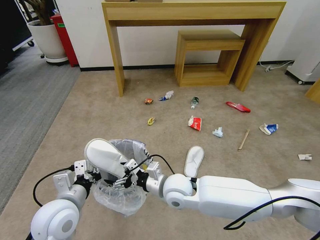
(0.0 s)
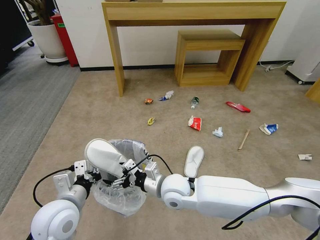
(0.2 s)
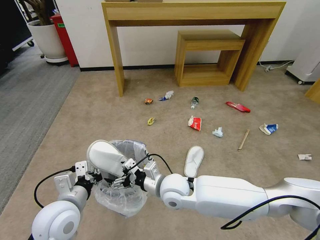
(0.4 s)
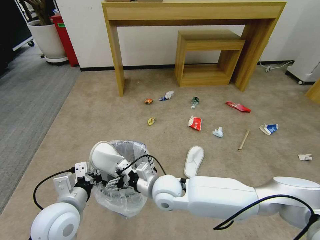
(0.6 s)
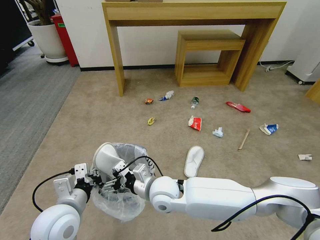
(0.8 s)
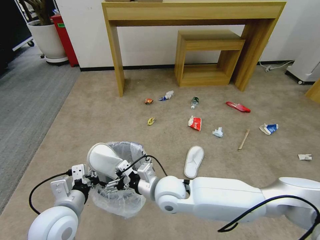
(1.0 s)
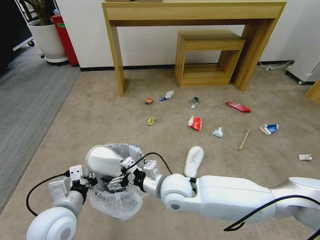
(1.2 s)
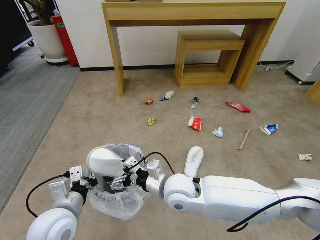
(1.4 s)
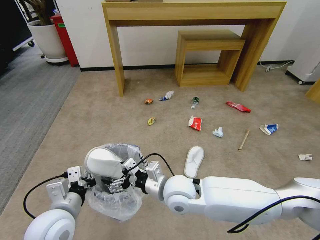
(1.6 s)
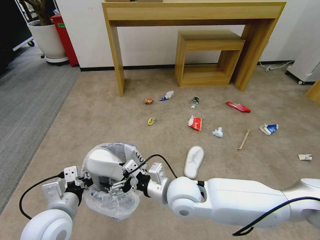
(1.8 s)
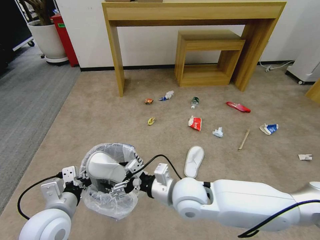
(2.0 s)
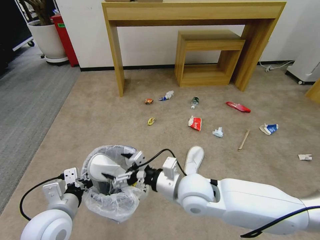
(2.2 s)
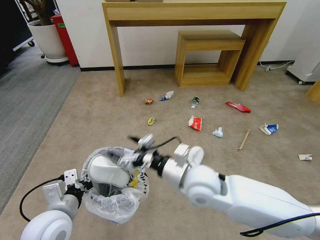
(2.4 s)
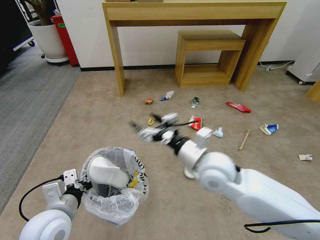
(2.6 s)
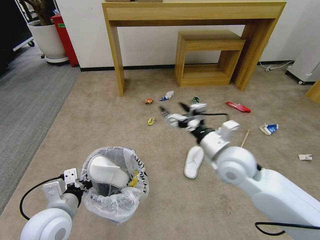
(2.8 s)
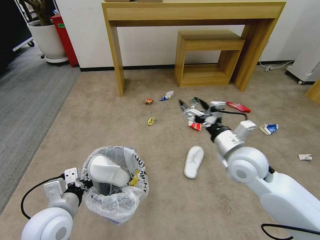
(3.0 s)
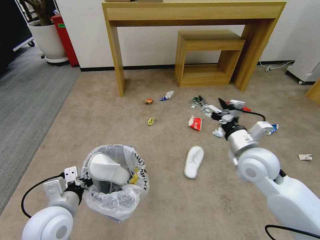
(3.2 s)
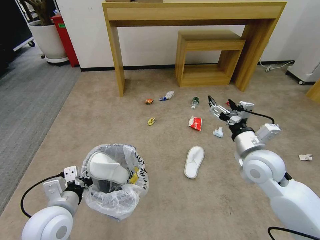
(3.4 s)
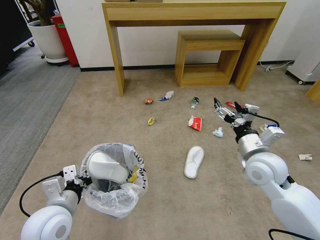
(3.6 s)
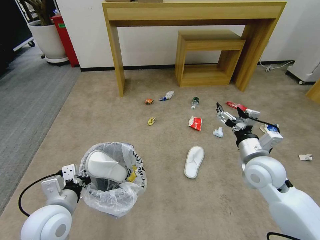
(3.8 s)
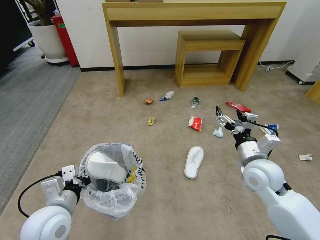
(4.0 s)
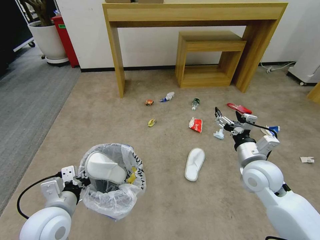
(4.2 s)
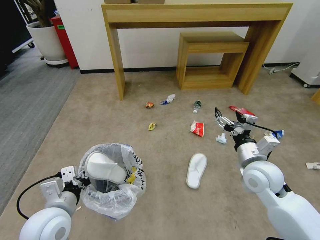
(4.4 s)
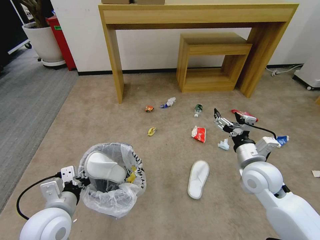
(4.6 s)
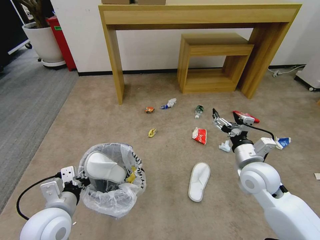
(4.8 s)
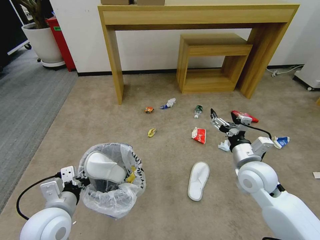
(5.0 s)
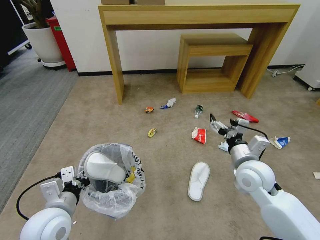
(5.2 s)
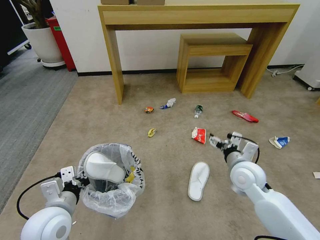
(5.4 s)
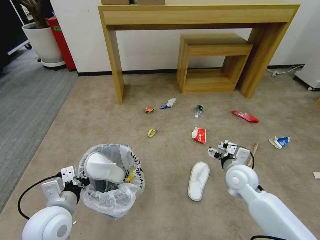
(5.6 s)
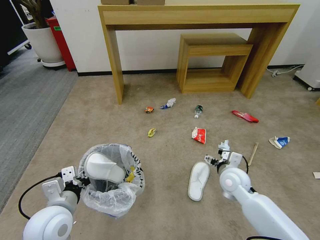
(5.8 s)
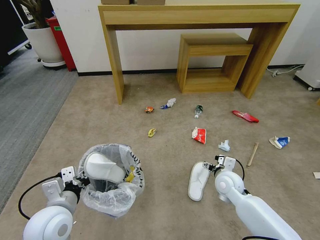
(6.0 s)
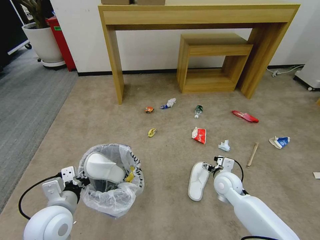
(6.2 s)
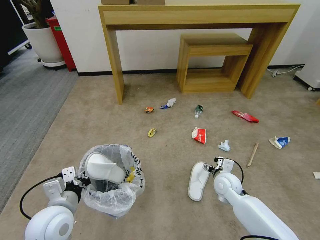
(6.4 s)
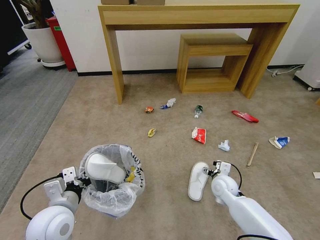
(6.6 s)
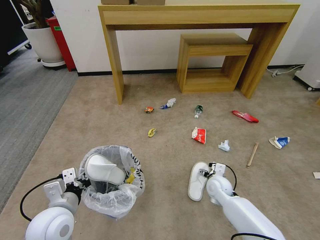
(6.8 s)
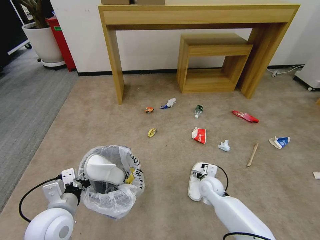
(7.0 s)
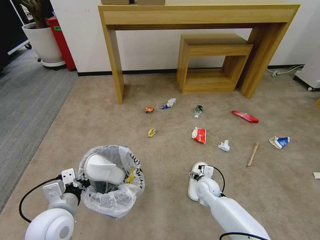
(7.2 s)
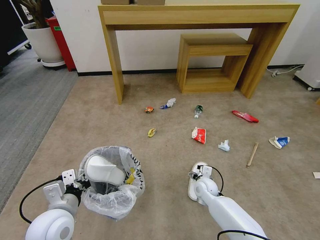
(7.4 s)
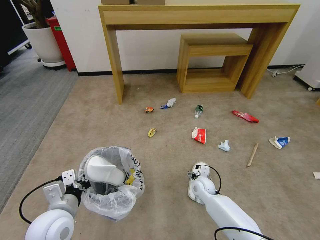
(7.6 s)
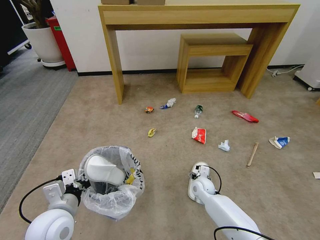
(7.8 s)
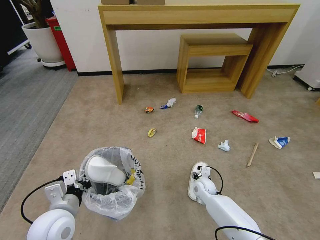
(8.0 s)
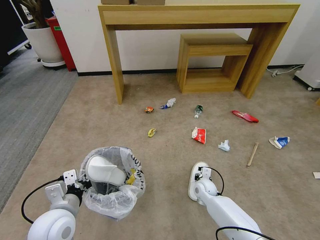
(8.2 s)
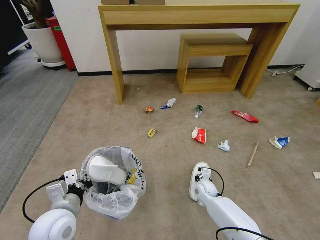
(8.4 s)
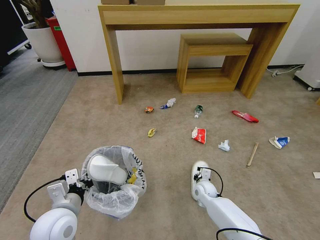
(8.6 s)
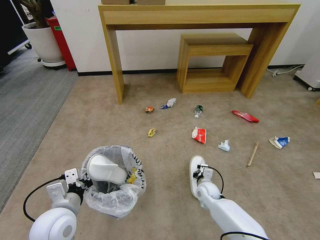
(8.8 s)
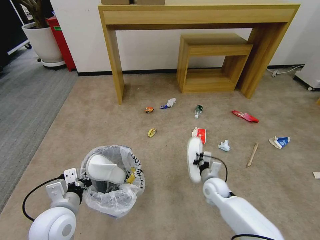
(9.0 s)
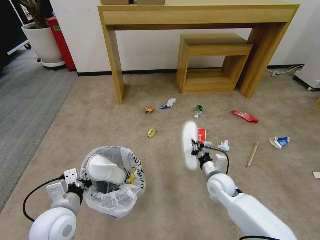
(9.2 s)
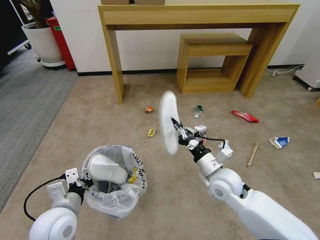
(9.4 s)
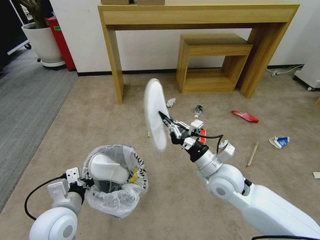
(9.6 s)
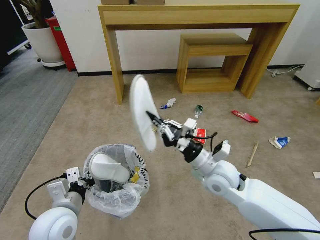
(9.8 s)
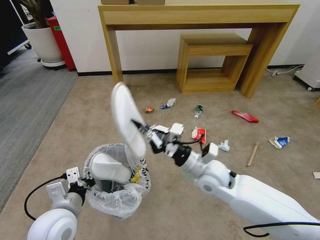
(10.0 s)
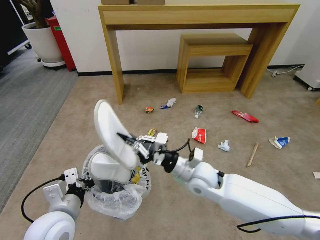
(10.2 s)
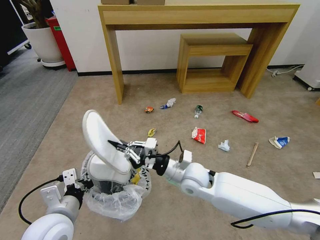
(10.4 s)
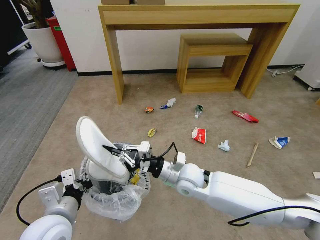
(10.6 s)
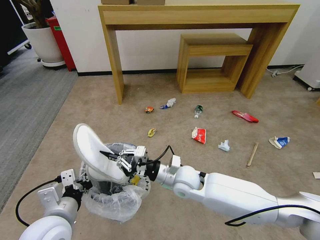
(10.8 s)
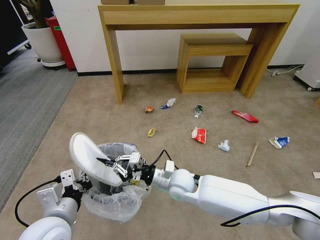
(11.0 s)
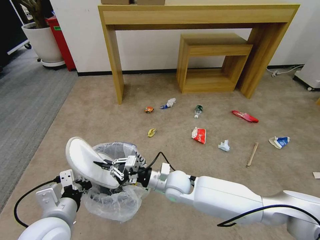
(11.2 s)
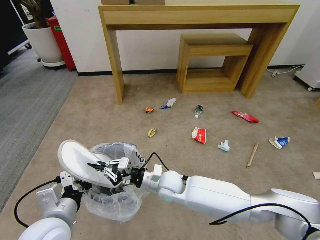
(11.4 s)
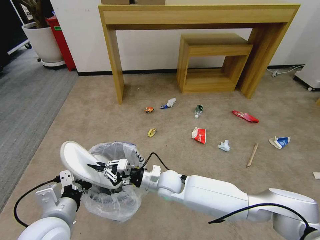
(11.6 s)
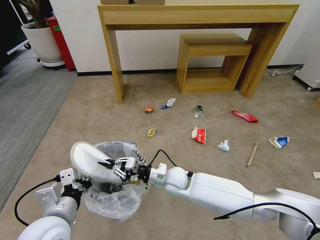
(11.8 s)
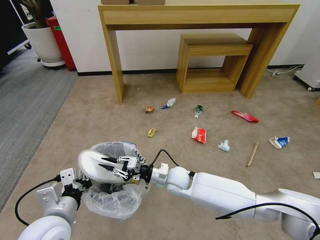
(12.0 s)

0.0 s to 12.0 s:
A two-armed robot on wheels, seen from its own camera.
Task of the whole recording: Pick up the trash bin and place the garbage on the floor into it.
0.0 to 1.6 s: The grippers move only a little.
1.6 to 3.0 s: The right gripper heads to the right and upward, covering about 20 cm.
3.0 to 4.4 s: The right gripper changes place by approximately 5 cm.
4.4 to 6.0 s: The right gripper is displaced downward by some 15 cm.
6.0 to 7.6 s: The right gripper goes about 15 cm downward and to the left.
7.6 to 9.0 s: The right gripper ends up roughly 5 cm from where it was, and closes its fingers.
9.0 to 10.4 s: The right gripper is displaced upward and to the left by about 20 cm.
10.4 to 12.0 s: The right gripper goes approximately 10 cm downward.

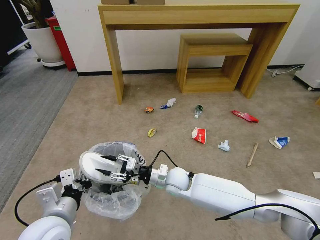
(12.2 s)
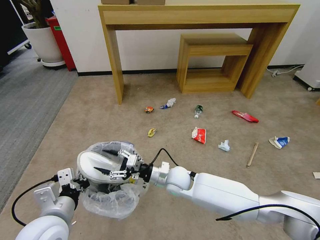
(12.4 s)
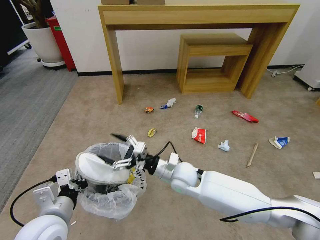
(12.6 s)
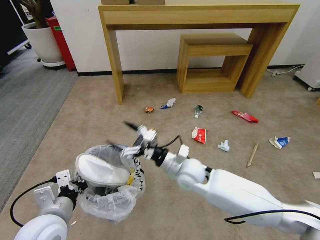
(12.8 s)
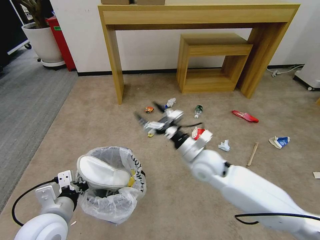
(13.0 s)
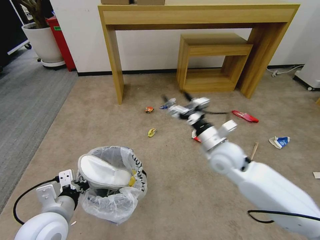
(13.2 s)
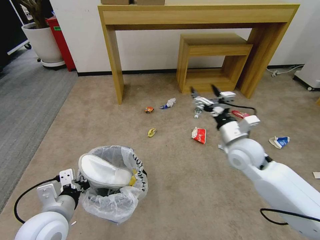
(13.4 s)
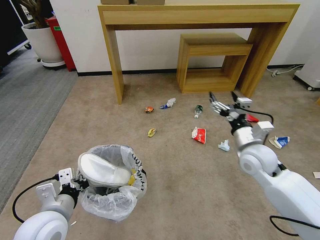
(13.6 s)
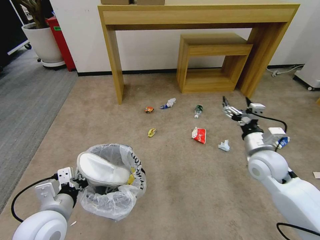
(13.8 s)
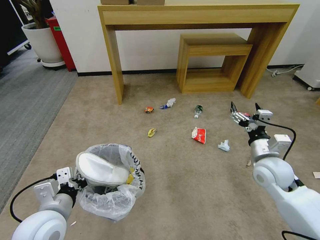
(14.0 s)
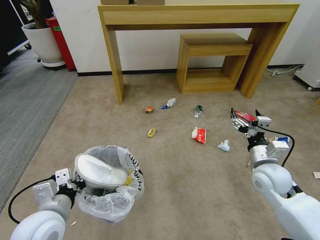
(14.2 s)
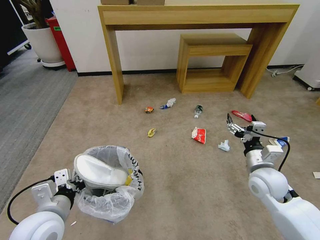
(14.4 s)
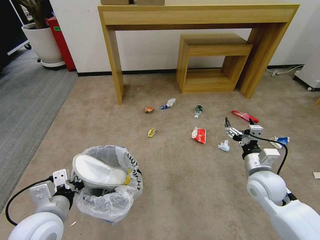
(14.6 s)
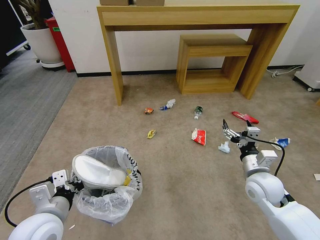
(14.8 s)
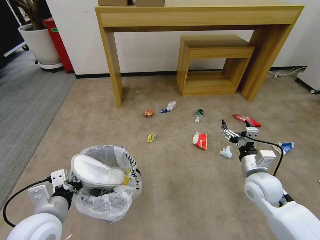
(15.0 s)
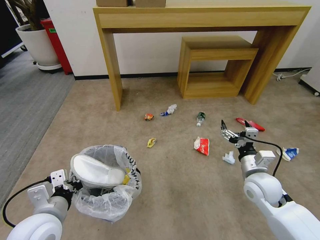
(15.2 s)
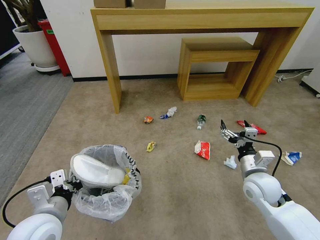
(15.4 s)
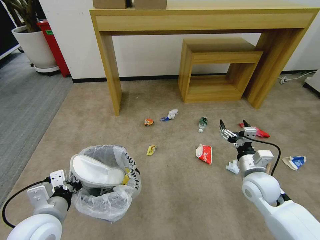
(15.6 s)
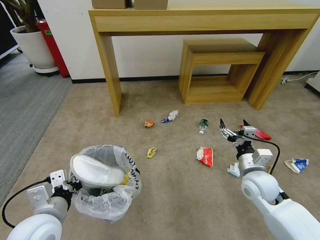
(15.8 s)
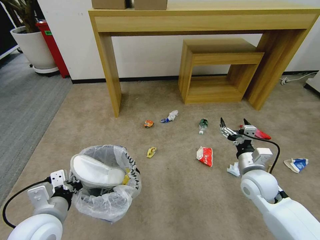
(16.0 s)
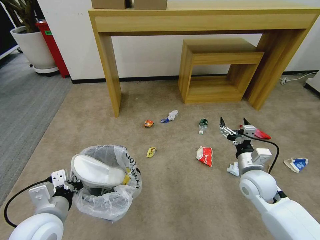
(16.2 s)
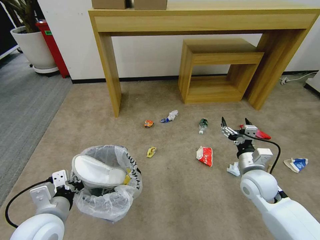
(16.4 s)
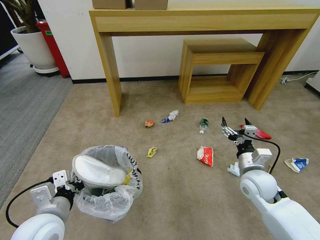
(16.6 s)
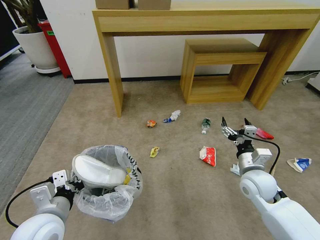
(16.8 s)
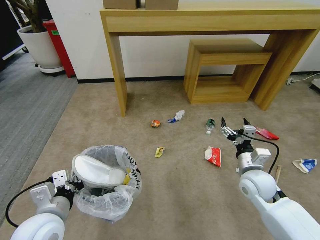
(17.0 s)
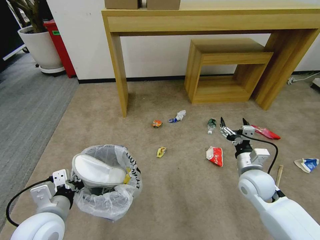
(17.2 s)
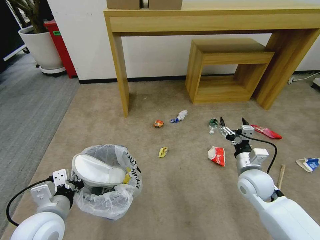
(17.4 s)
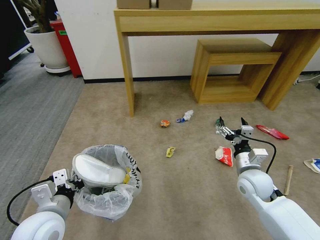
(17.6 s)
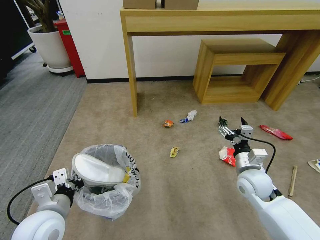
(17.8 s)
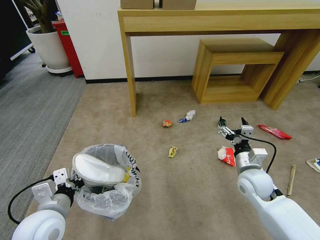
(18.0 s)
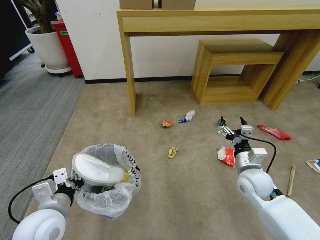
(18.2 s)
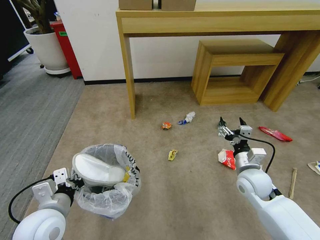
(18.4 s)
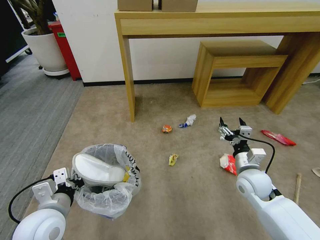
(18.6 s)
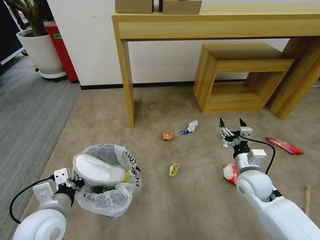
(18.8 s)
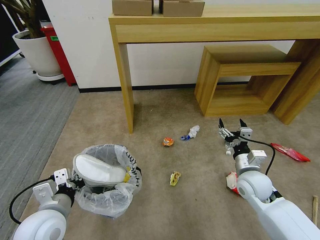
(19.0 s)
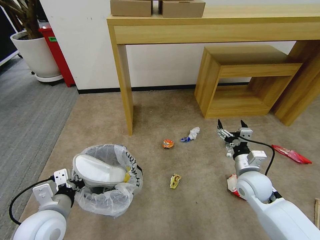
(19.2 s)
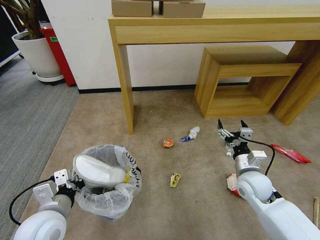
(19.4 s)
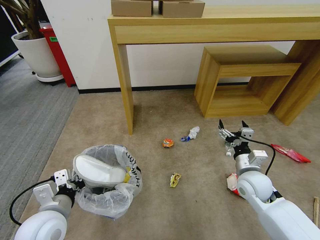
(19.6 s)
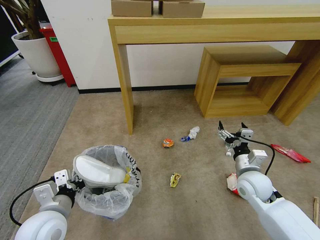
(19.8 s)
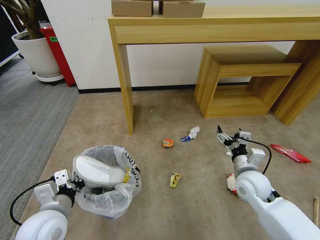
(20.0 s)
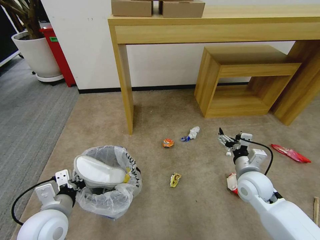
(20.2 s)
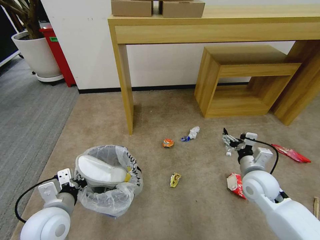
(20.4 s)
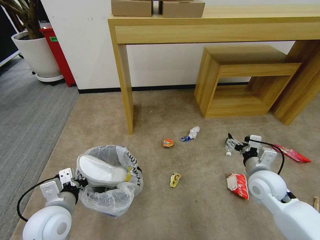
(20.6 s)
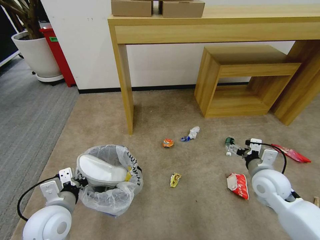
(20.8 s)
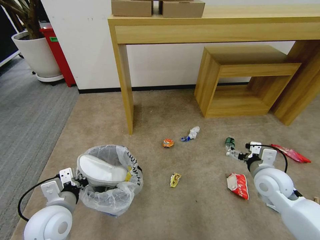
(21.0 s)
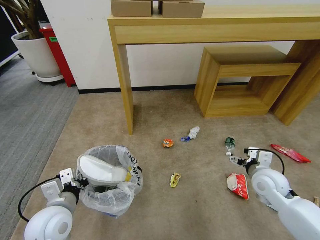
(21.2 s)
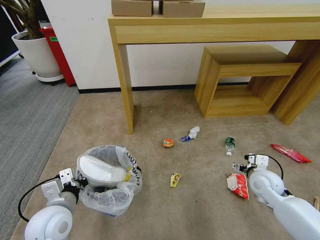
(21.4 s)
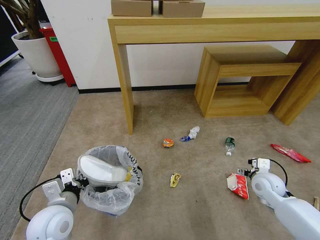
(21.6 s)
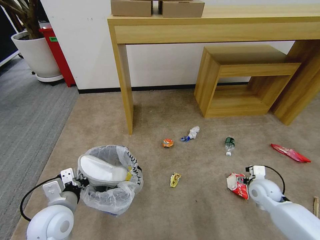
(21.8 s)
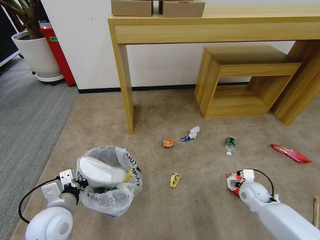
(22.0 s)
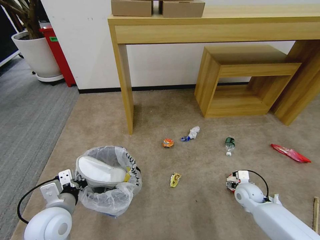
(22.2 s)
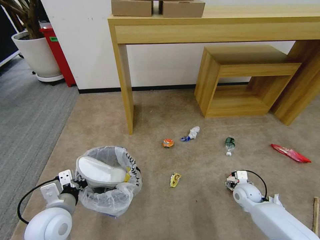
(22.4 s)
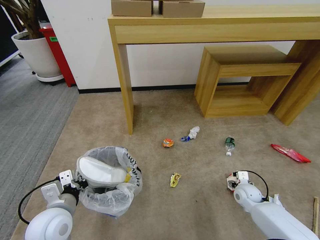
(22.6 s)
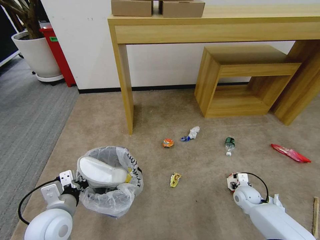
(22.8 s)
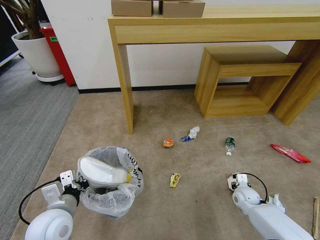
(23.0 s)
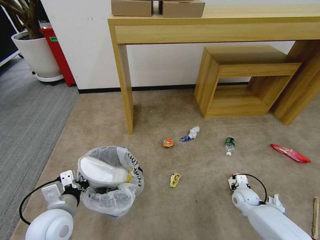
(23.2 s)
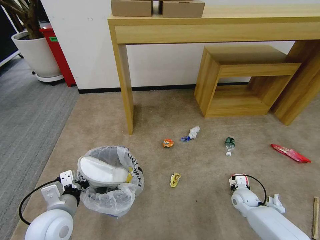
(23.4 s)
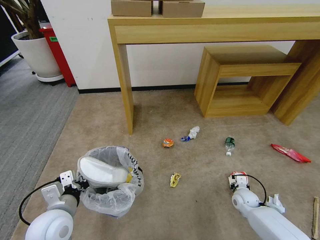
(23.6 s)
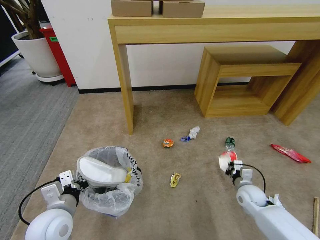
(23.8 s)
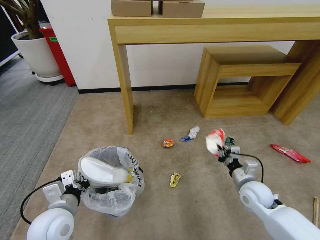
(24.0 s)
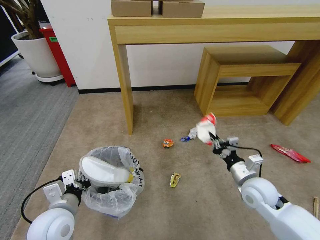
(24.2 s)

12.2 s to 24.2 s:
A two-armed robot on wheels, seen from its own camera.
Task of the whole recording: Pick up the trash bin and place the garbage on the floor into it.
12.2 to 13.8 s: The right gripper travels to the right and upward by roughly 30 cm, and opens.
13.8 to 15.2 s: The right gripper heads downward, covering about 5 cm.
15.2 to 16.6 s: Both grippers stay about where they are.
21.2 to 22.6 s: The right gripper is displaced downward by about 15 cm.
22.6 to 24.2 s: The right gripper moves upward, some 15 cm, and closes up.
